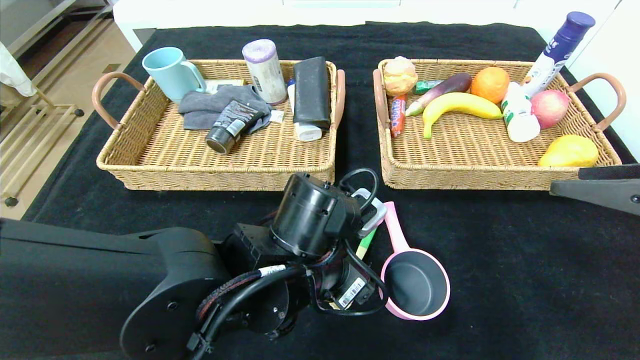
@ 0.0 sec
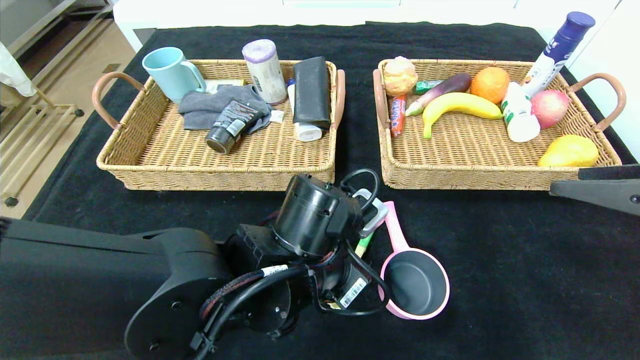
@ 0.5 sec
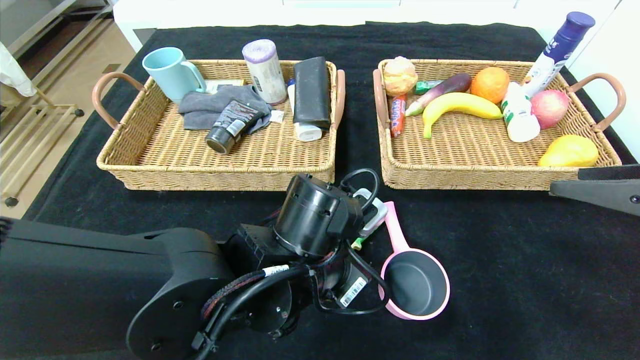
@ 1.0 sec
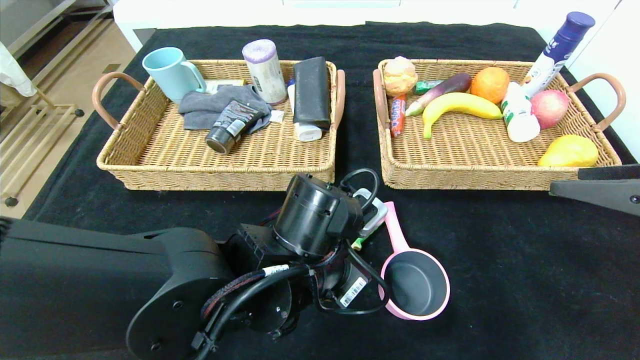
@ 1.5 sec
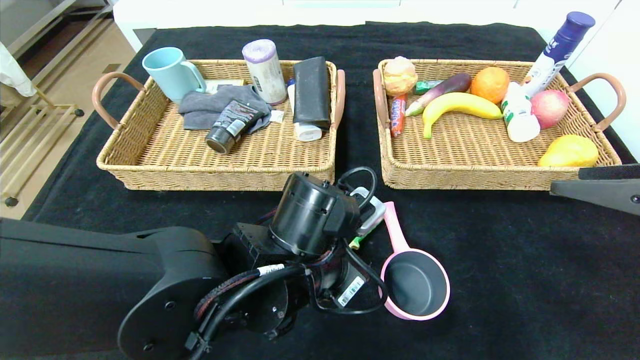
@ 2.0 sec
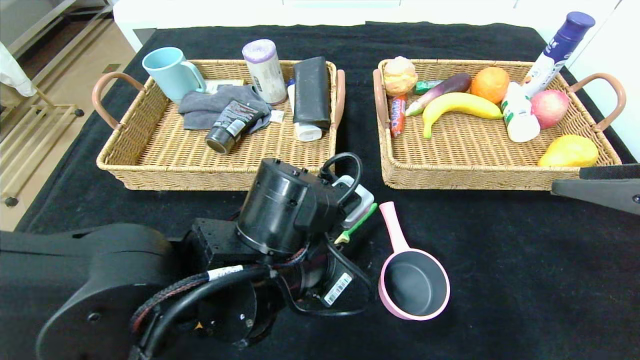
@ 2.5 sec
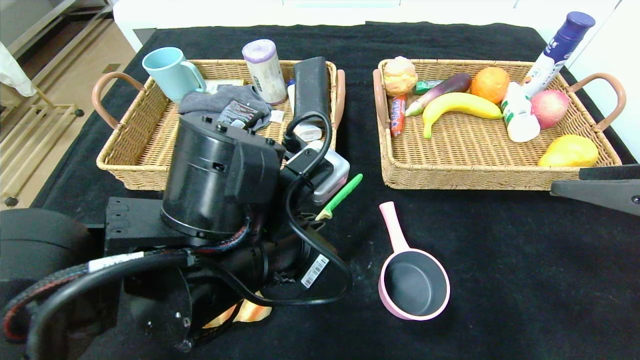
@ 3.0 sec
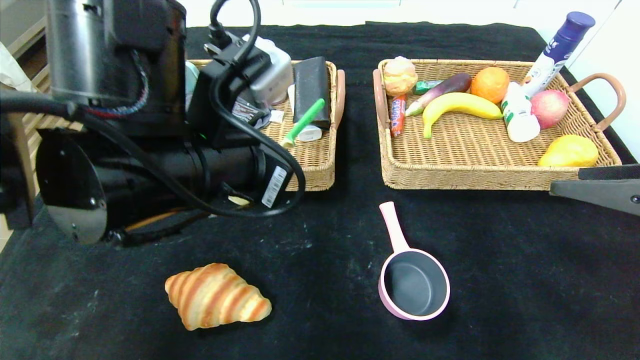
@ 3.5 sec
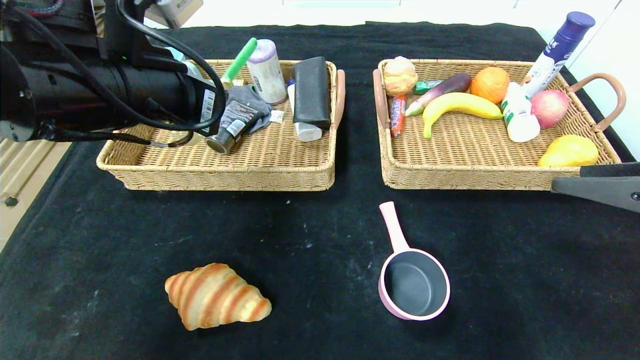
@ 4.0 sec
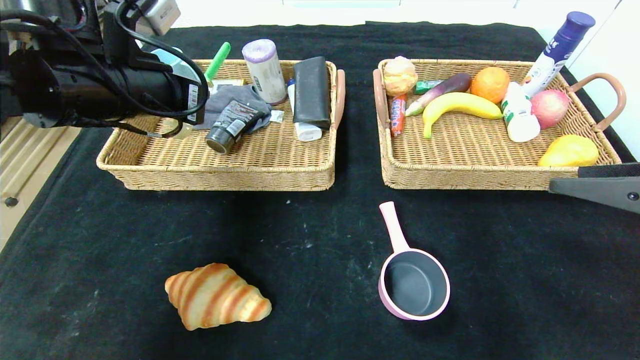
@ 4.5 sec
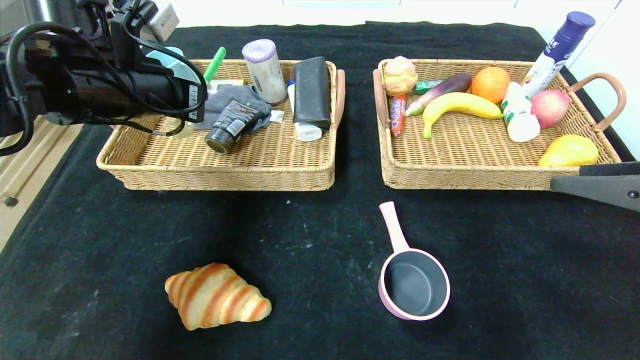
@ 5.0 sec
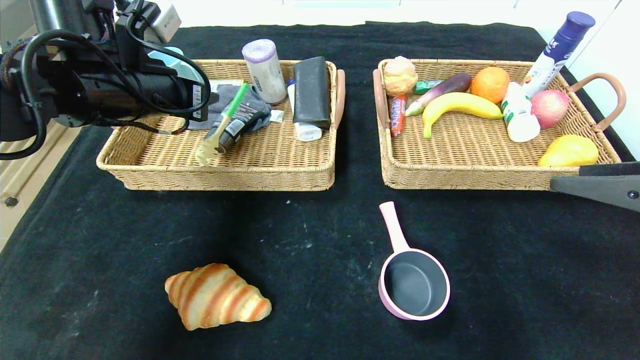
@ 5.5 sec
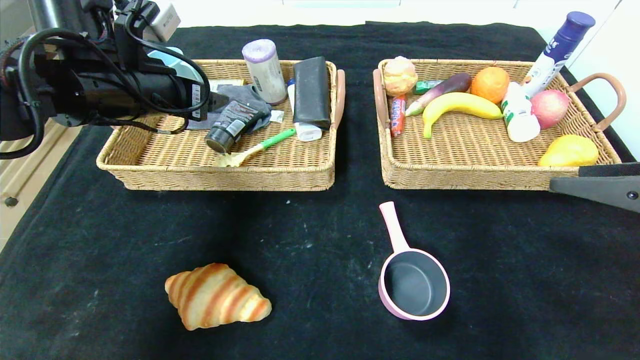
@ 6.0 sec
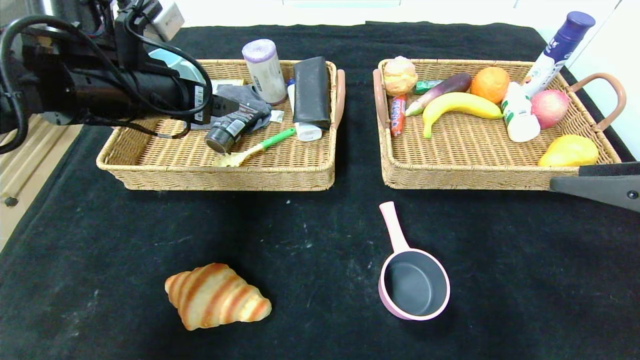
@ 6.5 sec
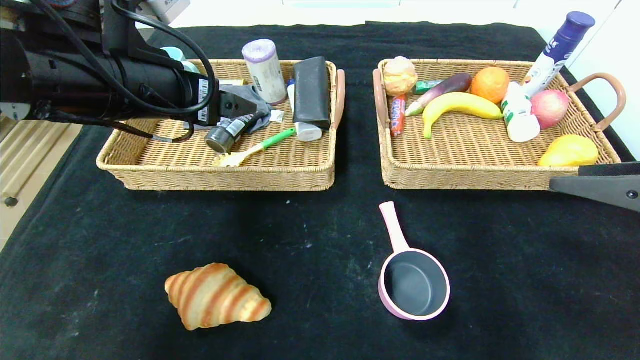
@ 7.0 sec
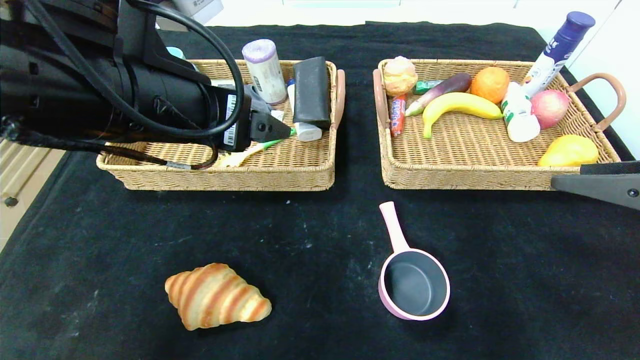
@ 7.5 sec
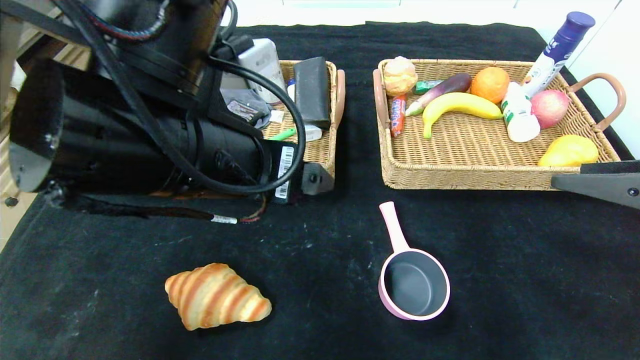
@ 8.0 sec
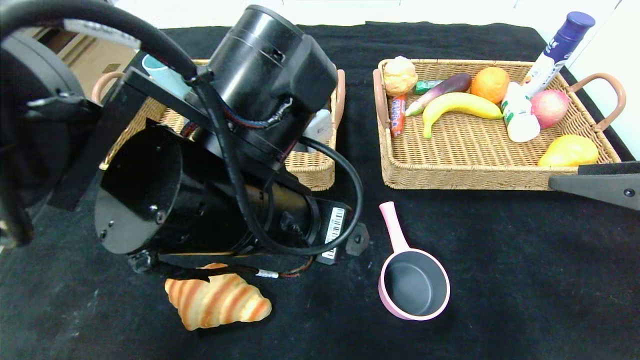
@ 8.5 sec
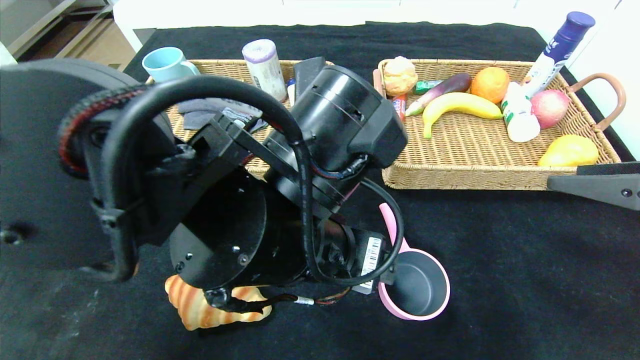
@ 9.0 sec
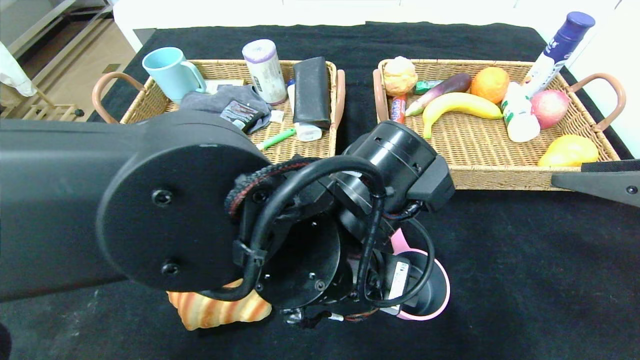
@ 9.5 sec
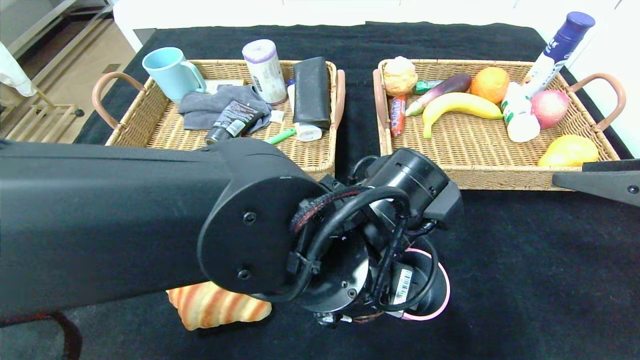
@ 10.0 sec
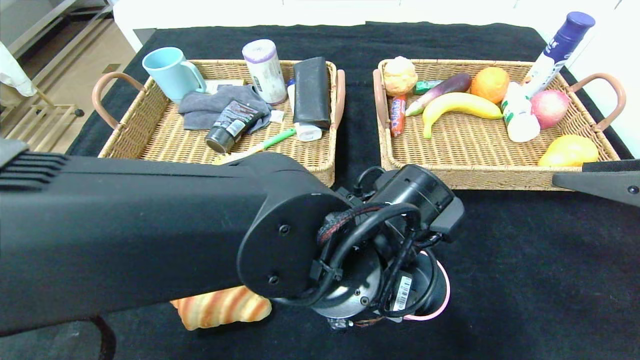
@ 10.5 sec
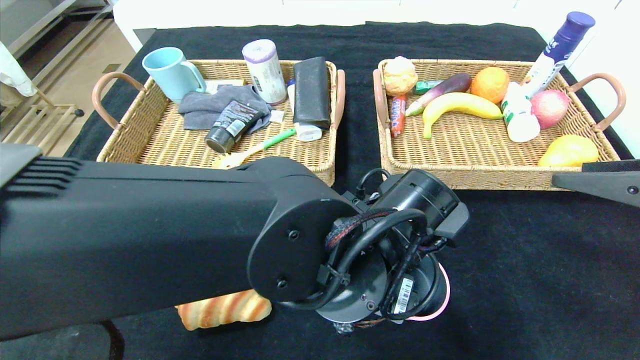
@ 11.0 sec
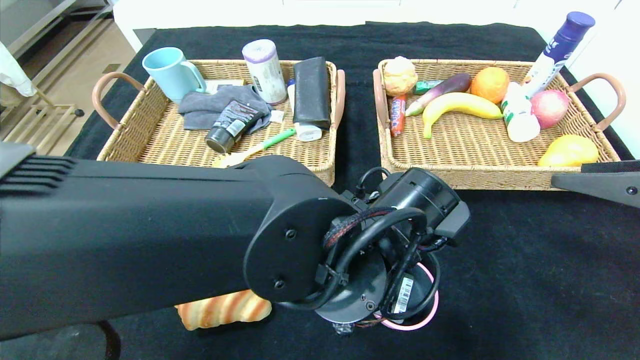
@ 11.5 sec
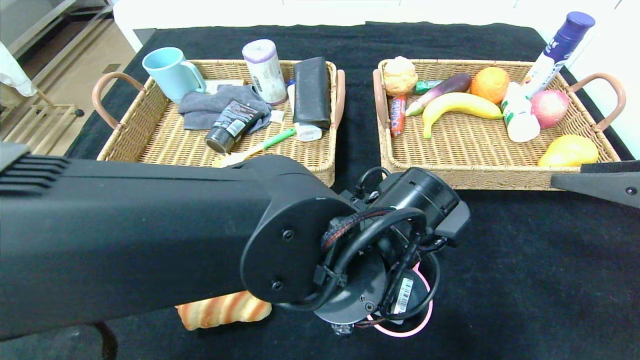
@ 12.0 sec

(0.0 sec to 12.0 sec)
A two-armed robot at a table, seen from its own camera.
0.0 sec - 2.0 sec: The left gripper closes its fingers.
2.0 sec - 4.0 sec: The left gripper heads upward and to the left, covering about 20 cm.
4.0 sec - 6.0 sec: The left gripper shifts roughly 5 cm forward, and opens.
6.0 sec - 8.0 sec: The left gripper moves backward and to the right, roughly 20 cm.
8.0 sec - 10.0 sec: The left gripper heads to the right and downward, covering approximately 15 cm.
10.0 sec - 12.0 sec: The left gripper closes up.

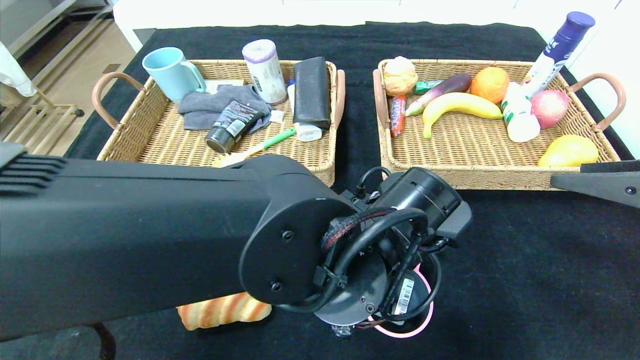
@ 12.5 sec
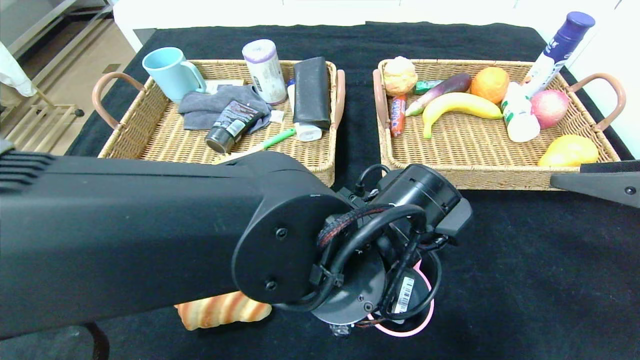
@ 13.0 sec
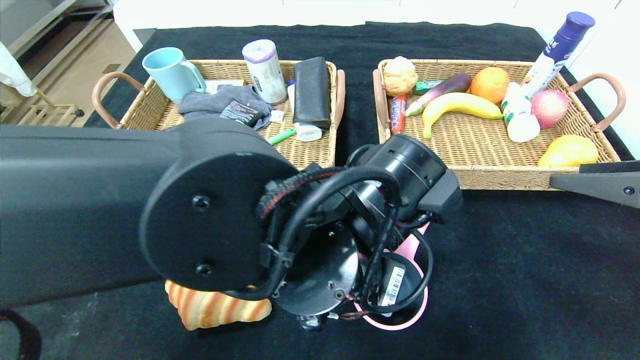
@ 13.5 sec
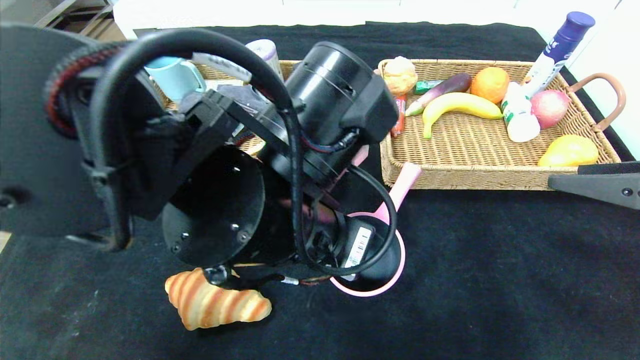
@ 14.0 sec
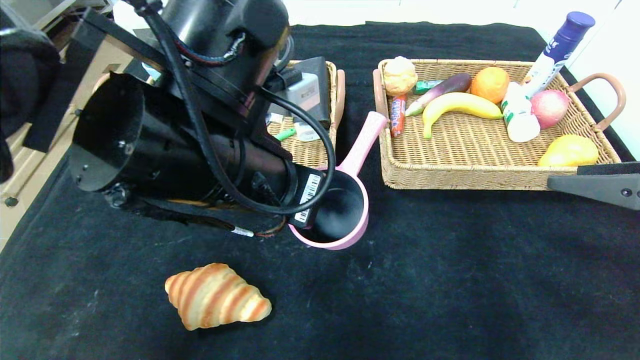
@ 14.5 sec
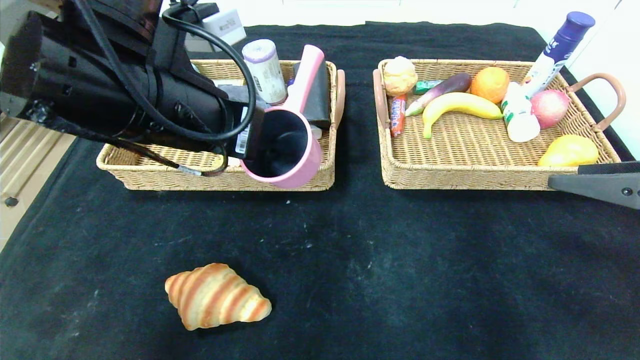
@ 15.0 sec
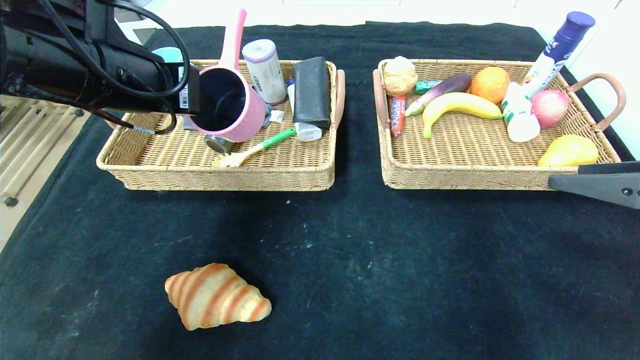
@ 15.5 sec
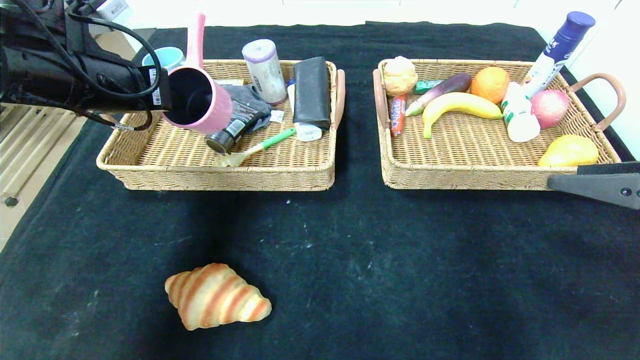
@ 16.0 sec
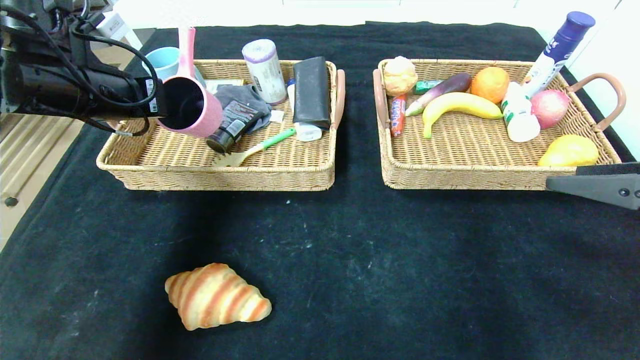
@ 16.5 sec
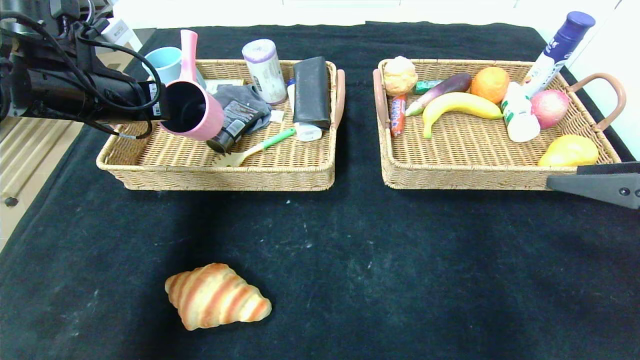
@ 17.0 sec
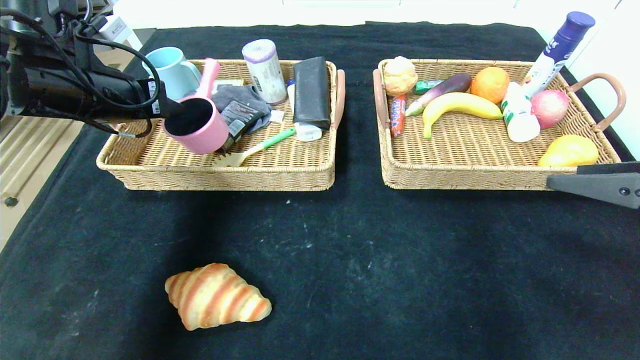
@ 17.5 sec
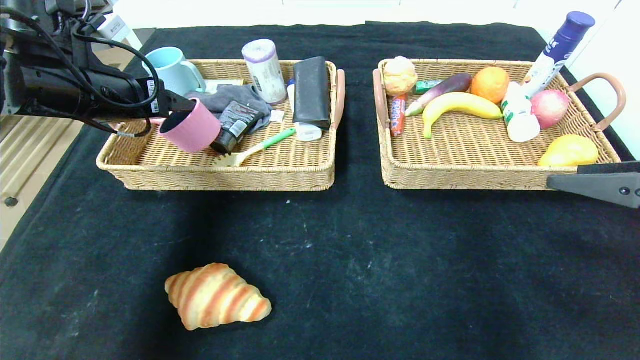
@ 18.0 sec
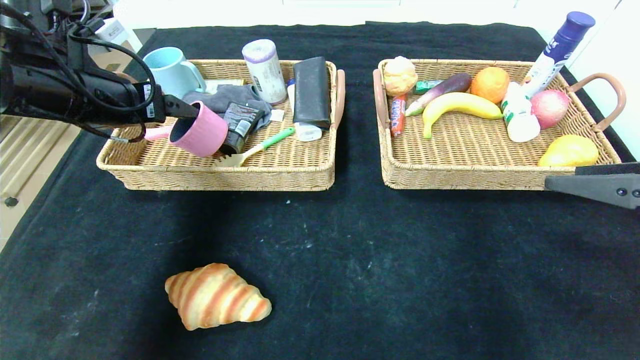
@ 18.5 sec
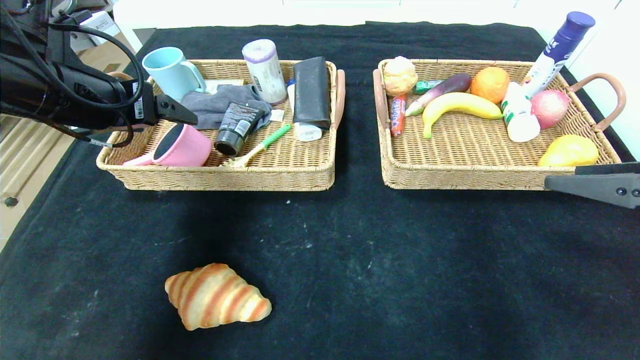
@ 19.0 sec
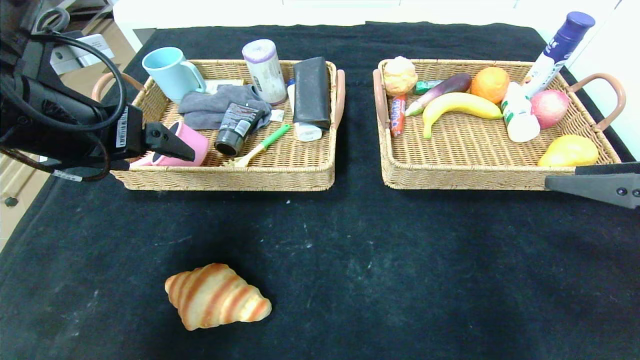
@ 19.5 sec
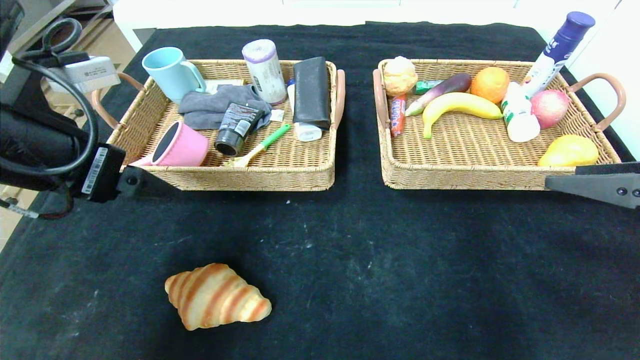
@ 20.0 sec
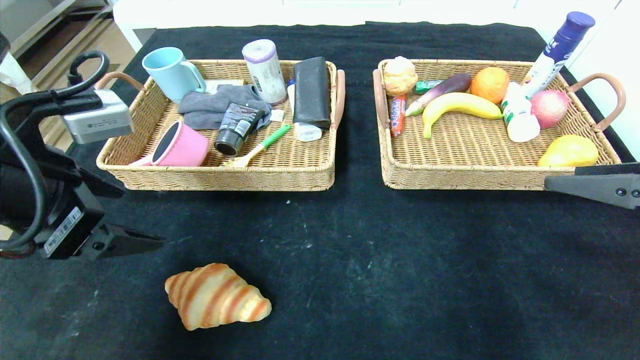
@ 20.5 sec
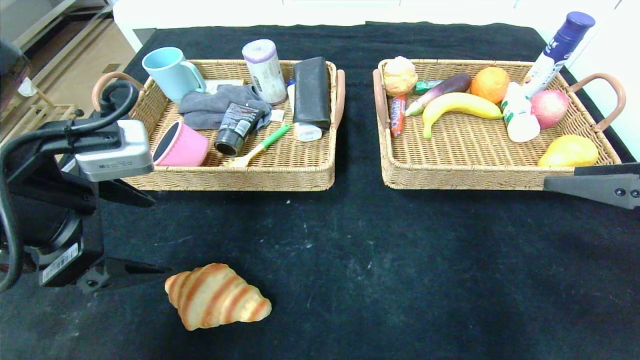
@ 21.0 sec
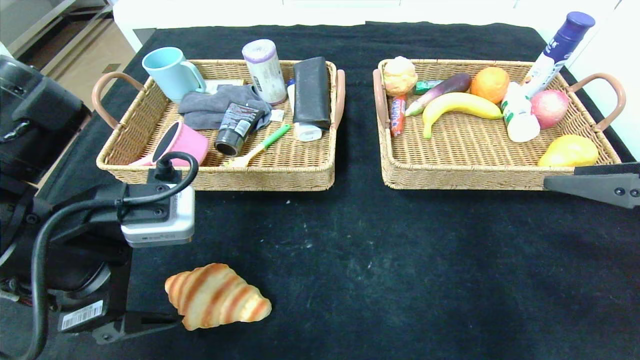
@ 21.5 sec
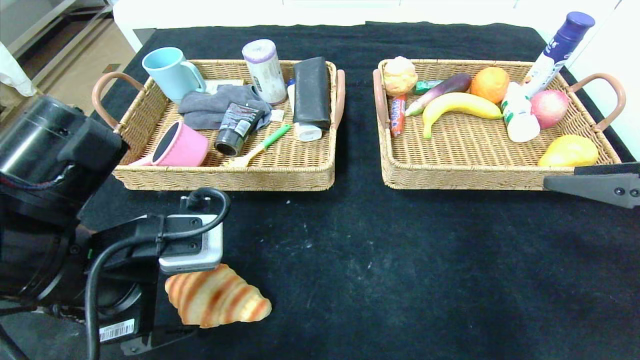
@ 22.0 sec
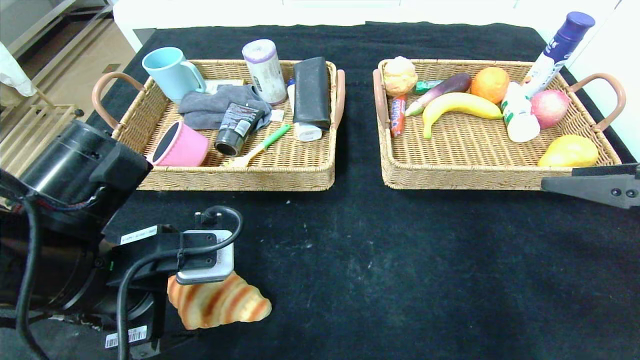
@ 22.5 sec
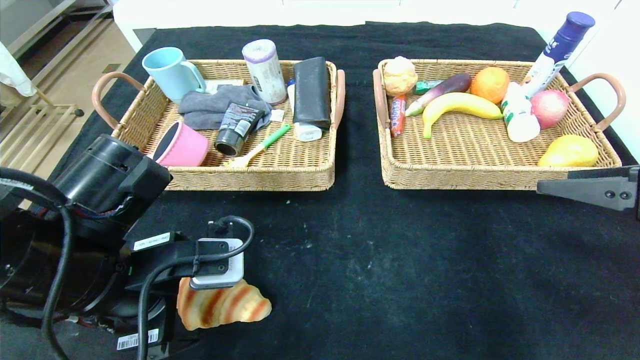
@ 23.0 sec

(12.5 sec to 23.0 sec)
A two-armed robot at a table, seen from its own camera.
Step, 12.5 sec - 21.0 sec: Grasp the pink pot and put it in the left basket.
12.5 sec - 14.5 sec: The left gripper goes about 15 cm to the left and upward.
14.5 sec - 16.5 sec: The left gripper travels to the left and forward by approximately 25 cm.
16.5 sec - 19.0 sec: The left gripper is displaced backward by some 5 cm, and opens up.
19.0 sec - 21.0 sec: The left gripper moves backward, some 10 cm.
21.0 sec - 23.0 sec: The left gripper is displaced downward and to the right by approximately 10 cm.
